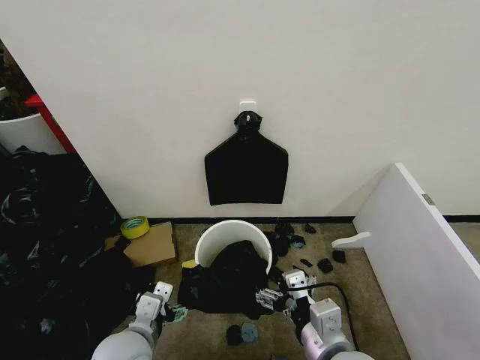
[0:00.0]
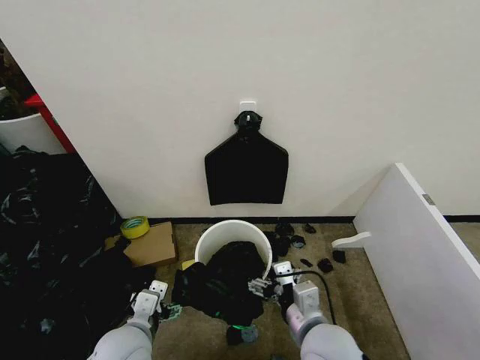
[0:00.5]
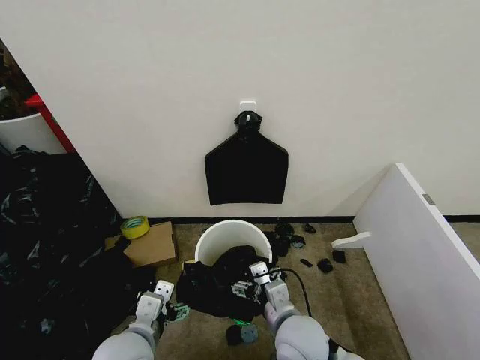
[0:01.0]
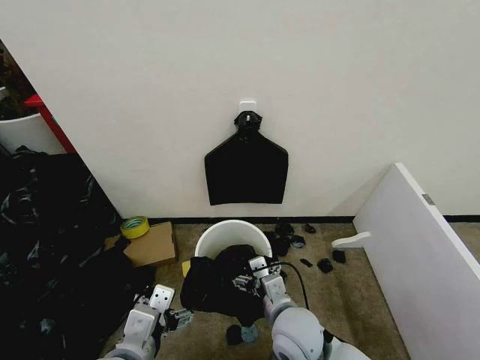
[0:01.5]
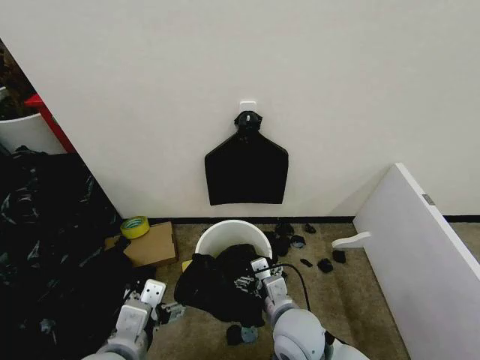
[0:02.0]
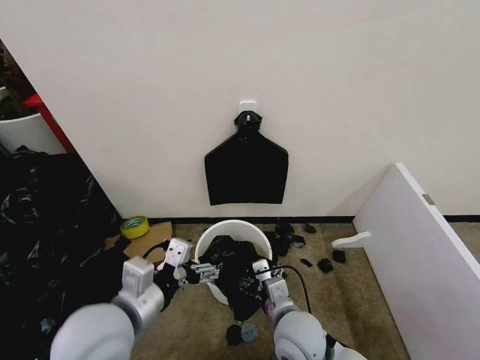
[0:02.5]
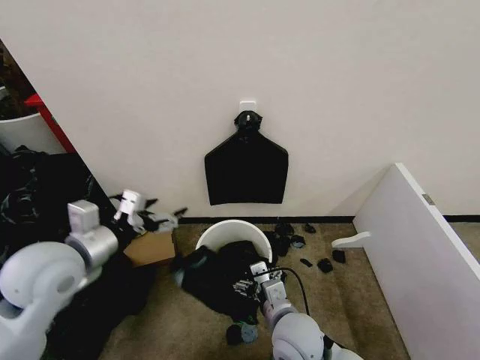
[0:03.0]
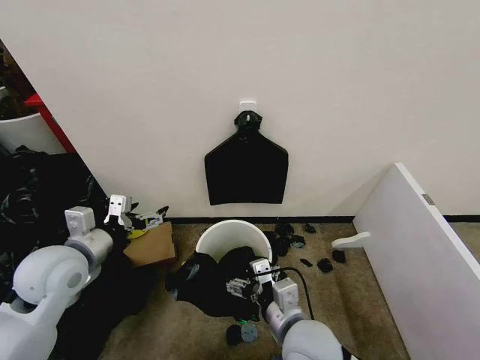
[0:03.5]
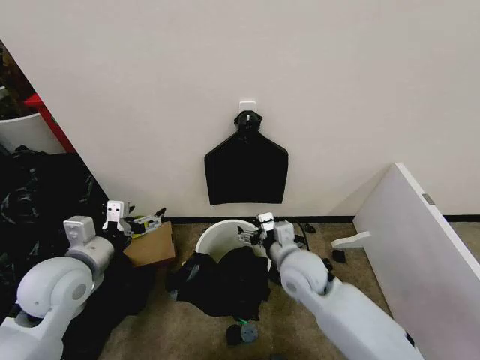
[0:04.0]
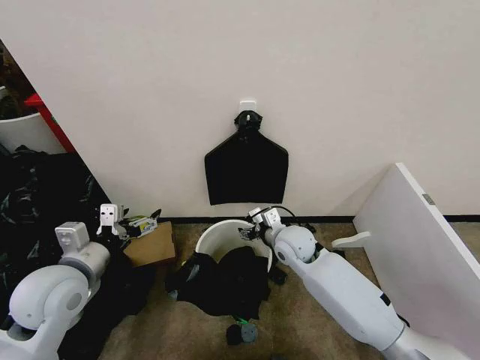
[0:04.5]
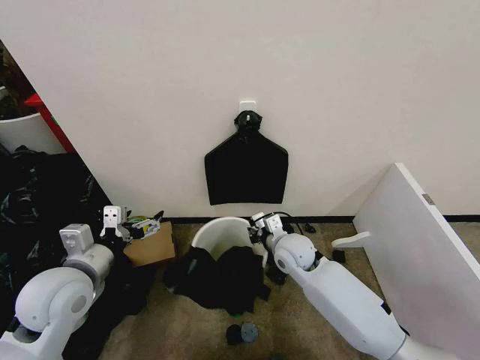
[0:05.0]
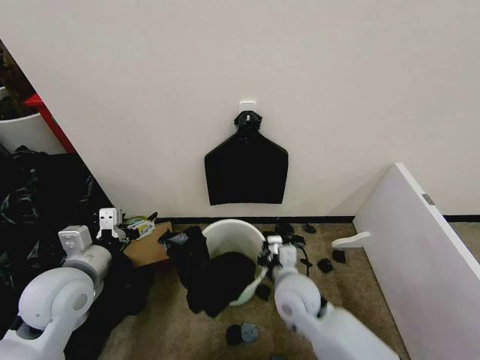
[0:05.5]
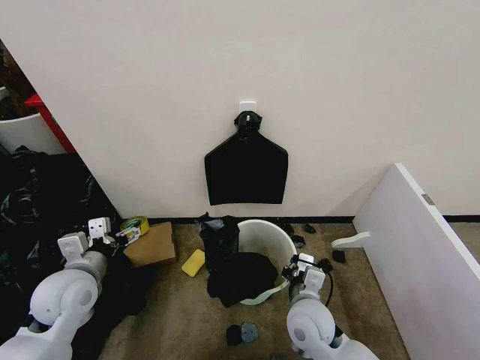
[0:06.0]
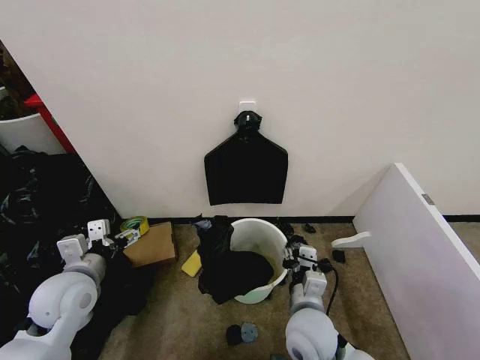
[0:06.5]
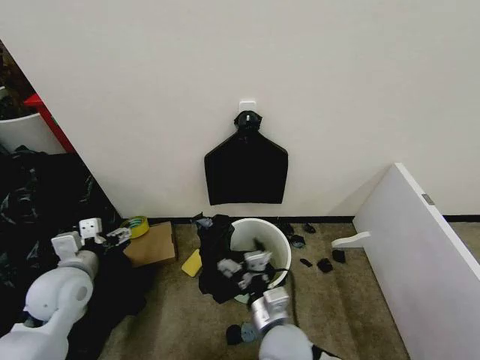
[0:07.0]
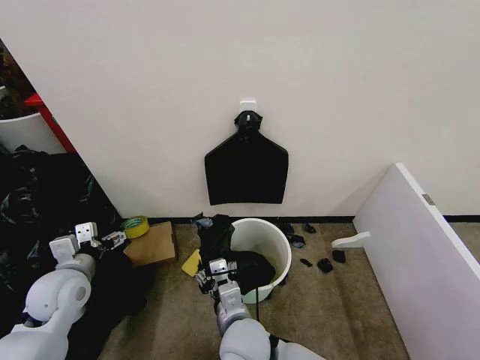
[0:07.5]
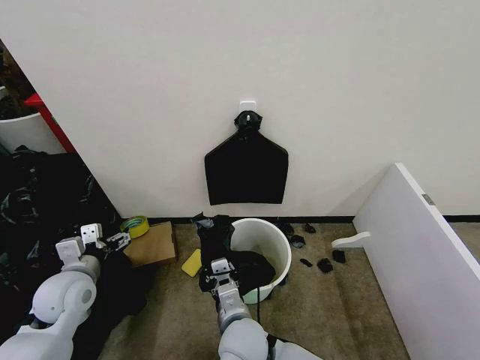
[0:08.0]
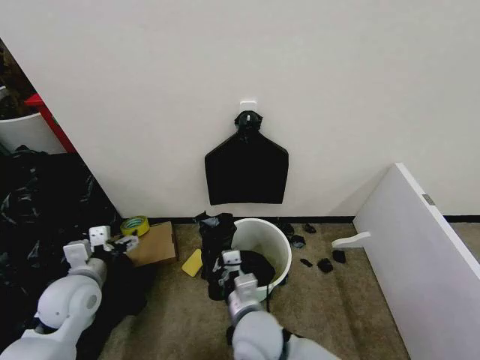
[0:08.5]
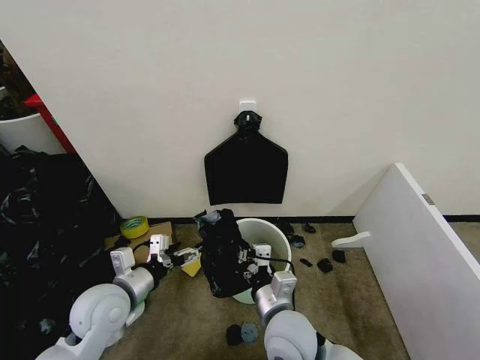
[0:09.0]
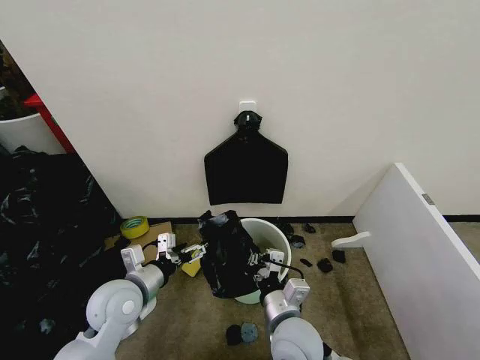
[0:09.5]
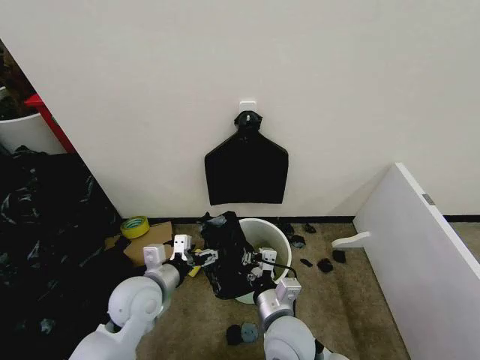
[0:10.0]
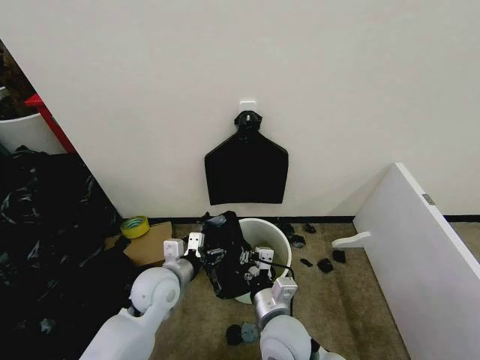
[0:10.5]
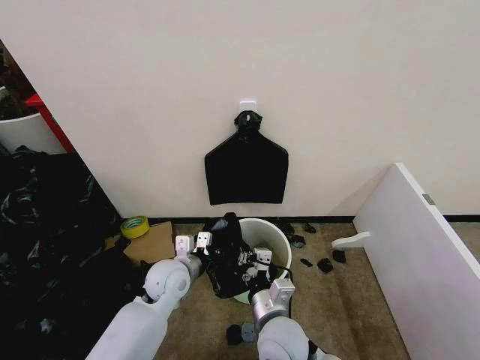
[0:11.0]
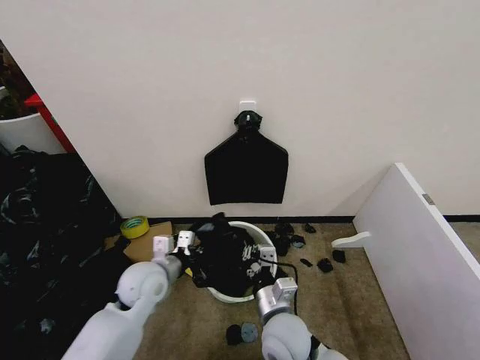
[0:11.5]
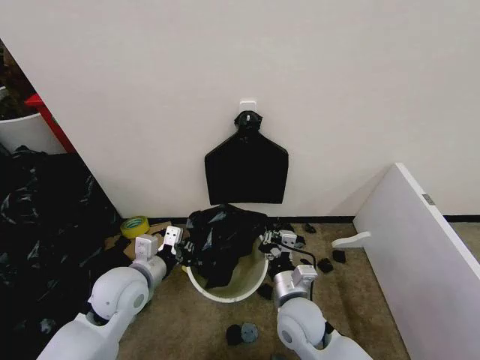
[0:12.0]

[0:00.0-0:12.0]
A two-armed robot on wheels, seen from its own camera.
Task of the whole recording: Place the garbage bag over the trash bin.
0:00.0 to 0:02.0: The right gripper shifts some 15 cm downward, forward and to the left; the left gripper heads upward, covering roughly 5 cm.
0:02.0 to 0:04.0: The left gripper shifts roughly 20 cm forward and to the left. The right gripper moves forward, roughly 10 cm.
0:04.0 to 0:06.0: The right gripper travels downward and backward by some 10 cm, and closes its fingers; the left gripper moves approximately 5 cm.
0:06.0 to 0:08.0: The right gripper shifts some 15 cm to the left, and opens, then closes once more.
0:08.0 to 0:10.0: The left gripper moves to the right, roughly 15 cm; the right gripper is displaced to the right by about 10 cm.
0:10.0 to 0:12.0: The right gripper moves about 5 cm, while the left gripper closes its fingers.

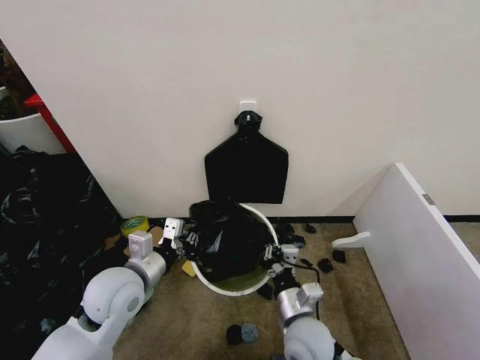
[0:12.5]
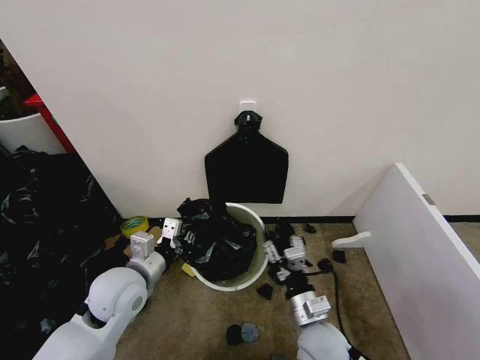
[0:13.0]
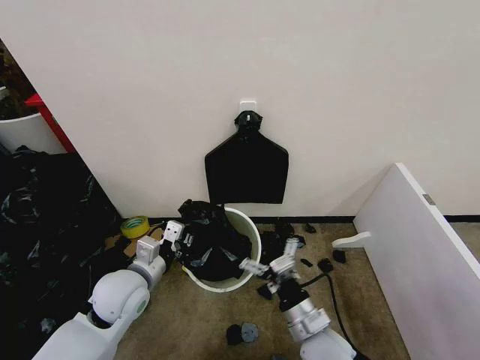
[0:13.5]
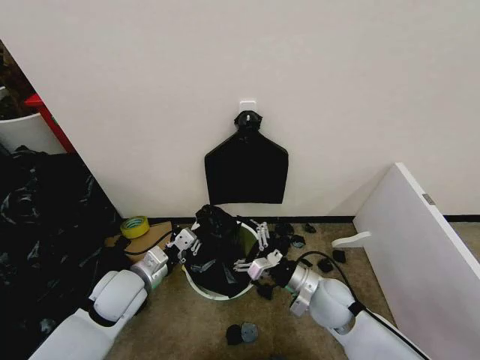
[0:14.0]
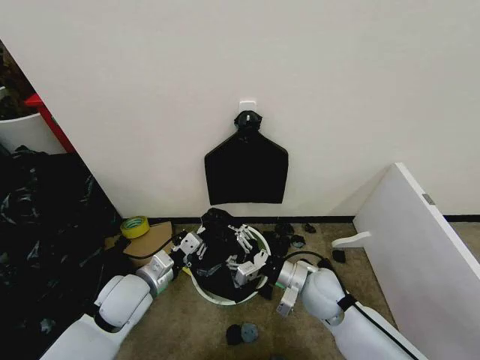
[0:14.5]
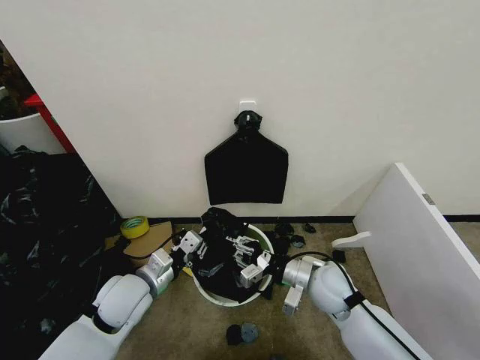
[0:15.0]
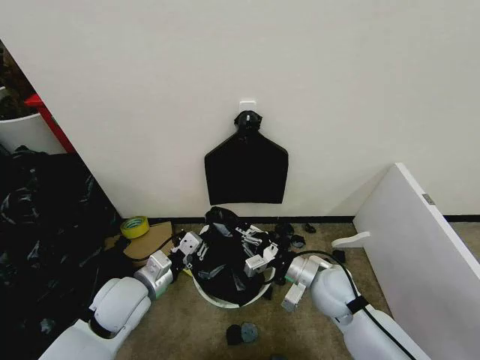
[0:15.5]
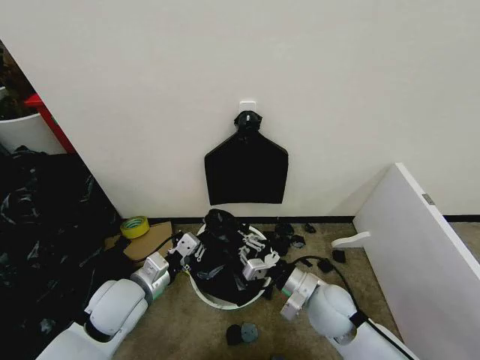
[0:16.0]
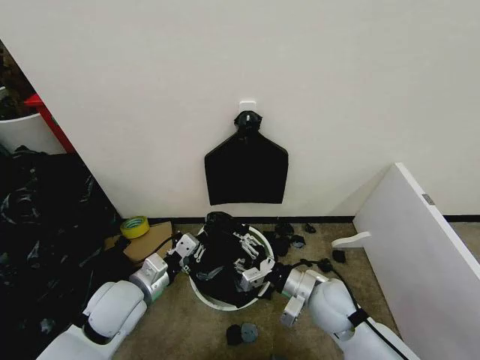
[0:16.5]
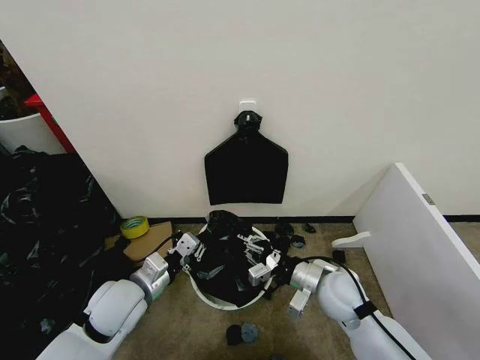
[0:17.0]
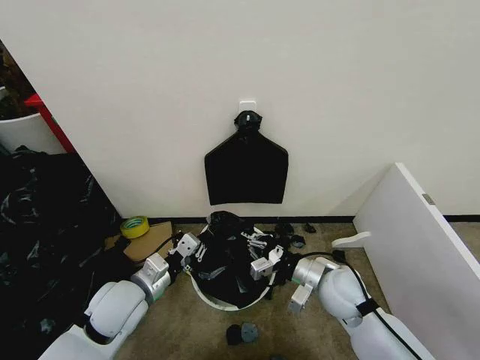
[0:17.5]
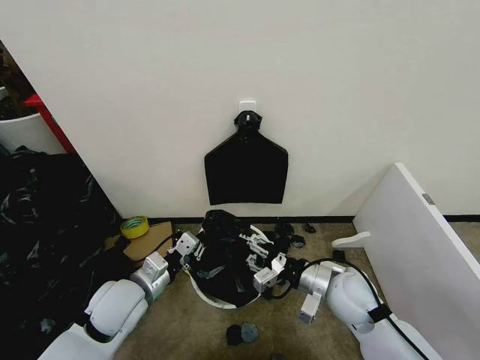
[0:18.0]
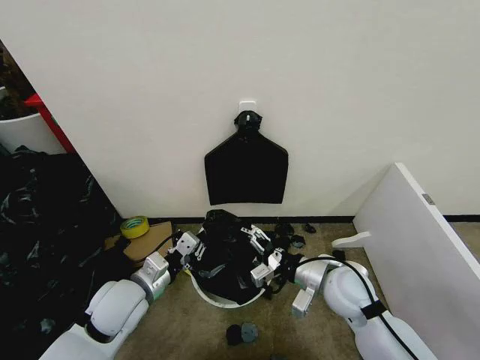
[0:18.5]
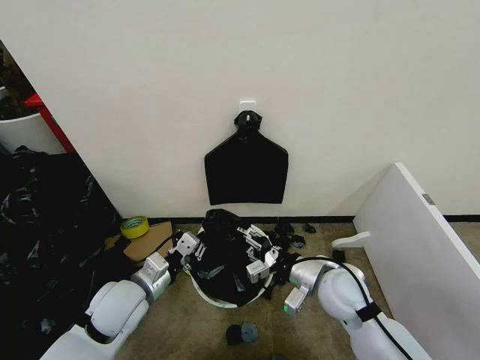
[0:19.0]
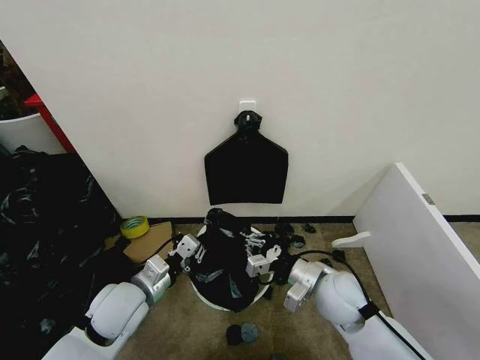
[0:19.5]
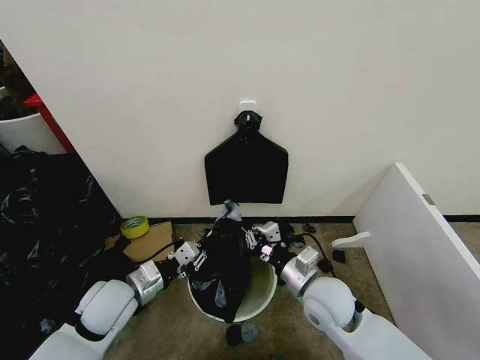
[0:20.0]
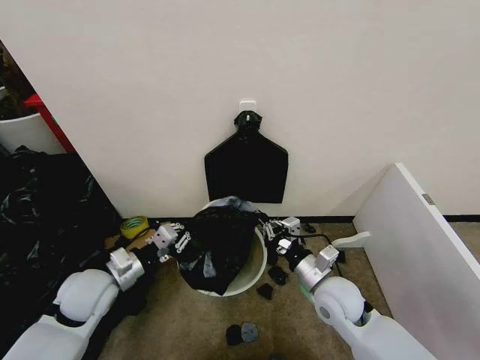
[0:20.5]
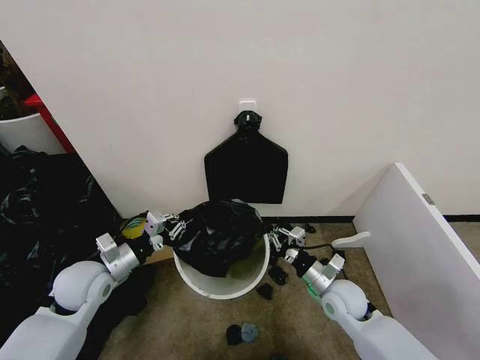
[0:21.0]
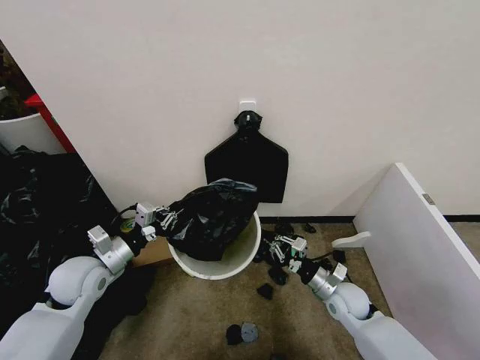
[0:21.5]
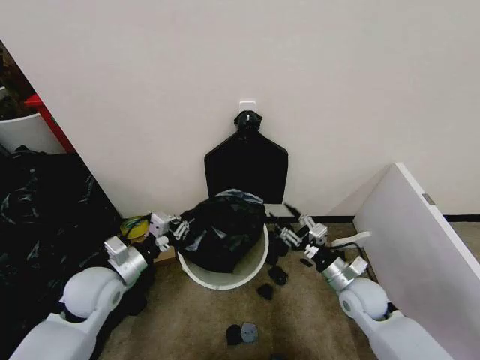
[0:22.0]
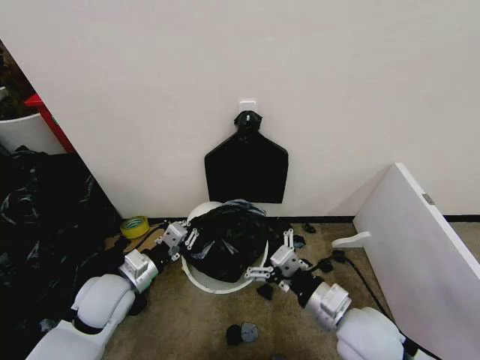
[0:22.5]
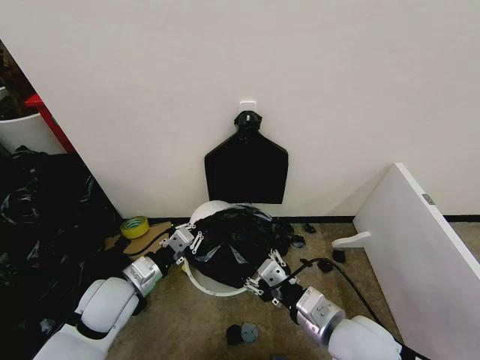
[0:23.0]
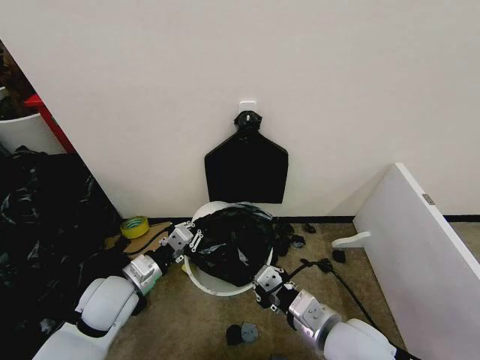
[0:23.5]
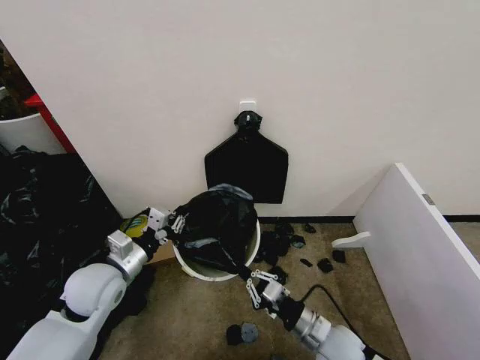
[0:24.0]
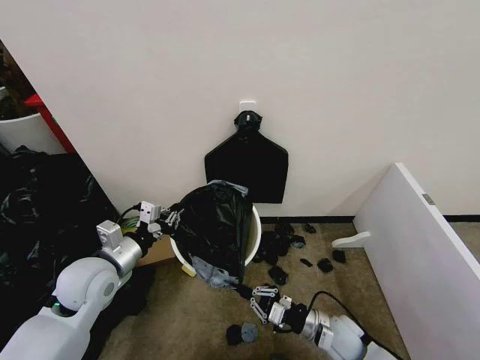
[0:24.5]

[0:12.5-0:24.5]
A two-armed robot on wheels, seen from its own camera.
Task of the whole recording: Place the garbage bag over the trash bin.
0:12.5 to 0:14.5: The left gripper goes some 5 cm downward. The right gripper moves forward, approximately 10 cm, and opens.
0:14.5 to 0:16.5: The right gripper closes and opens again.
0:16.5 to 0:18.5: The right gripper changes place by about 5 cm, and closes, then reopens.
0:18.5 to 0:20.5: The left gripper is displaced to the left by about 5 cm; the right gripper closes its fingers.
0:20.5 to 0:22.5: The right gripper moves backward and upward, roughly 10 cm, and opens.
0:22.5 to 0:24.5: The right gripper travels downward by some 20 cm, and closes, while the left gripper moves about 5 cm.

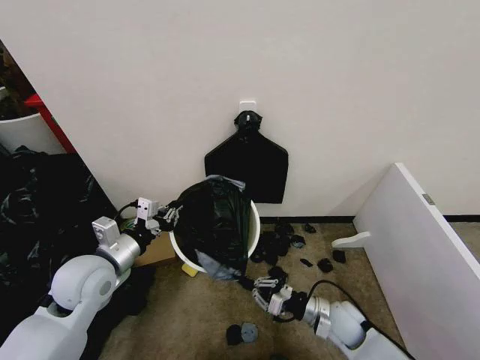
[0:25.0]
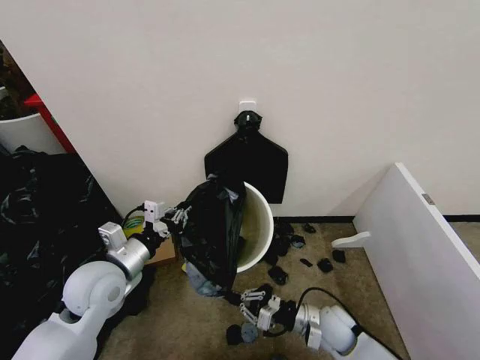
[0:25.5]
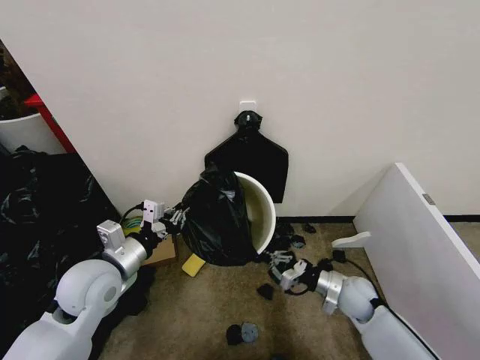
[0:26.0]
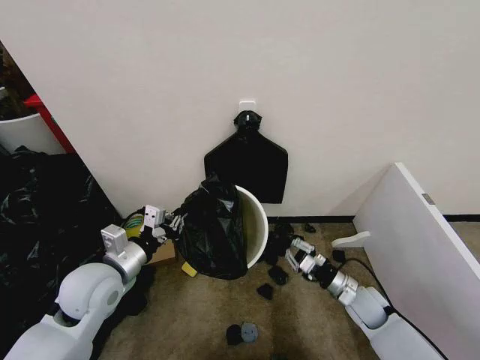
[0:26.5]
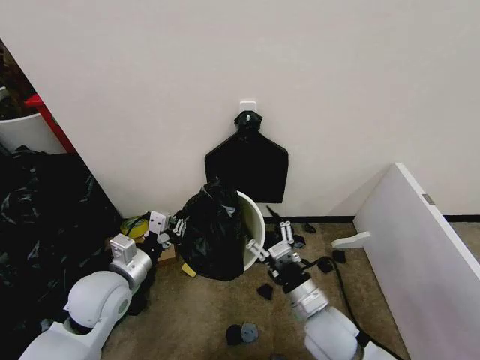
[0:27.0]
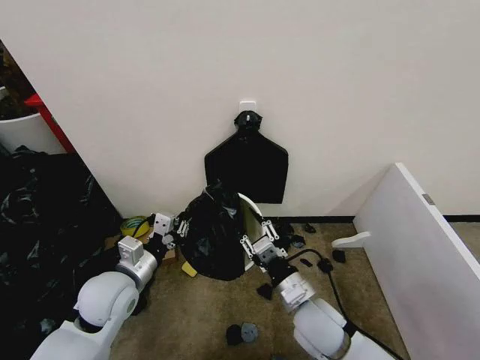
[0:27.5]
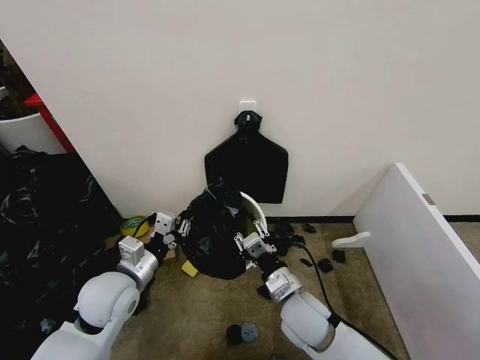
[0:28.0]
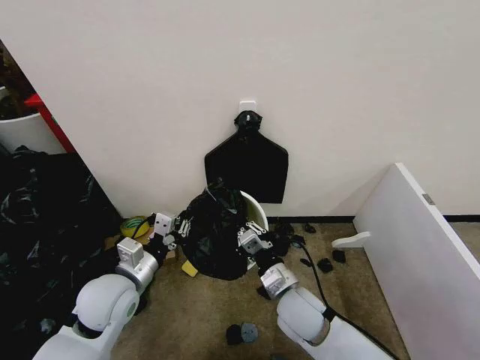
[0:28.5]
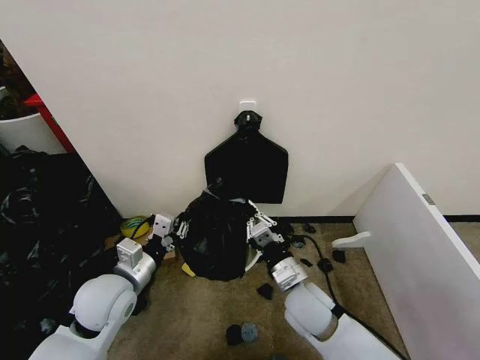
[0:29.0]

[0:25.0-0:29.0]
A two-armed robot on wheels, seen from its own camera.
Task of the whole recording: Place the garbage bag over the trash bin.
0:25.0 to 0:27.0: The right gripper shifts approximately 15 cm upward and to the left, and opens its fingers.
0:27.0 to 0:29.0: The right gripper ends up approximately 5 cm from where it was, and closes.
